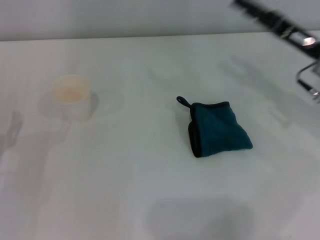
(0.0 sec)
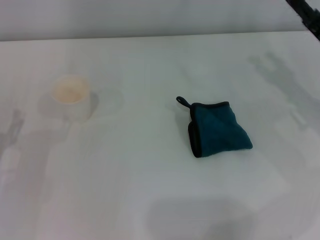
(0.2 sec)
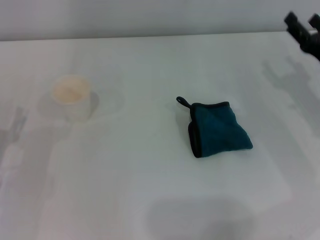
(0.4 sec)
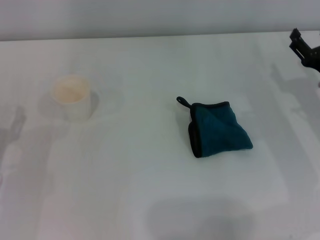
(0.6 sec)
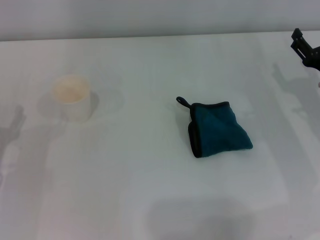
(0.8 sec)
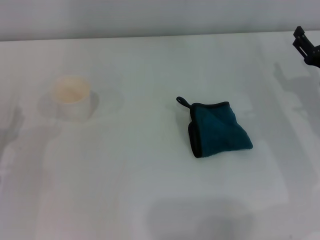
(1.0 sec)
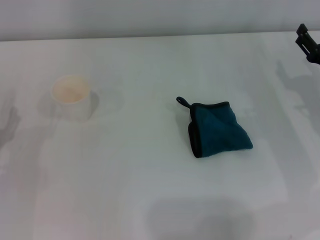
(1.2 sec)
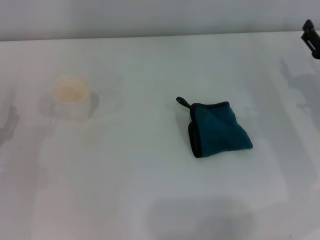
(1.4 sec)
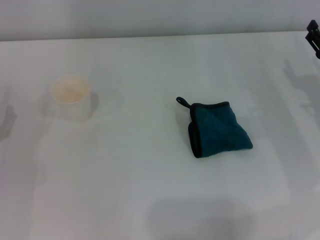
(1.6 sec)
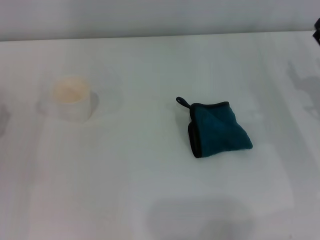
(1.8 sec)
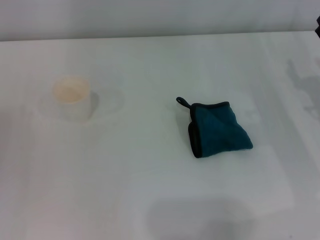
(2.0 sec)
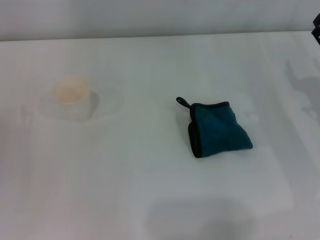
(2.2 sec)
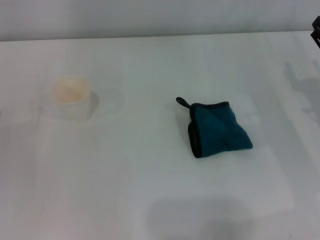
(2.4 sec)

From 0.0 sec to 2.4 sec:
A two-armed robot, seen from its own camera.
From 0.0 sec to 1.2 sec: The right gripper heads downward, covering about 5 cm.
From 1.2 sec to 2.4 sec: The grippers move only a little.
